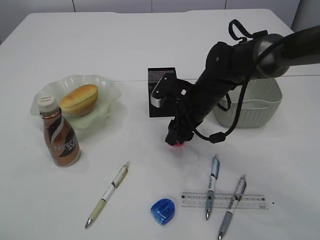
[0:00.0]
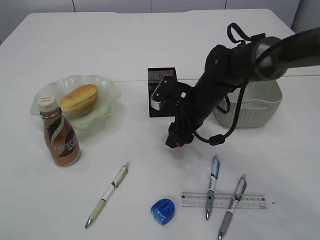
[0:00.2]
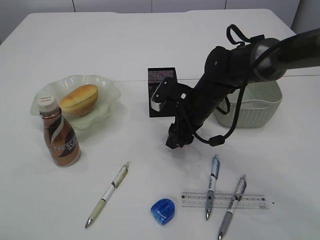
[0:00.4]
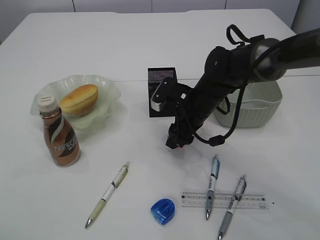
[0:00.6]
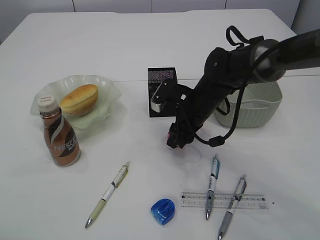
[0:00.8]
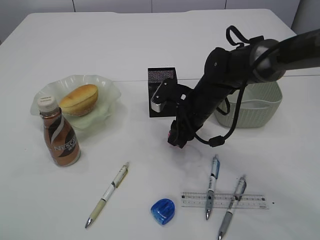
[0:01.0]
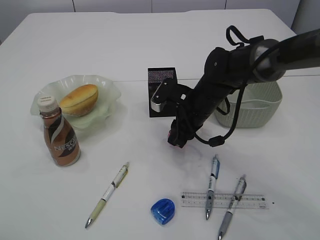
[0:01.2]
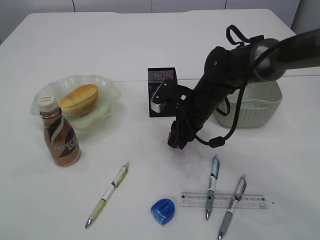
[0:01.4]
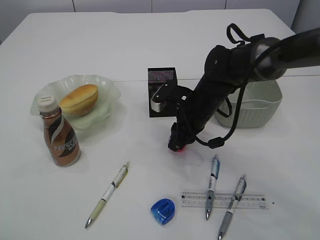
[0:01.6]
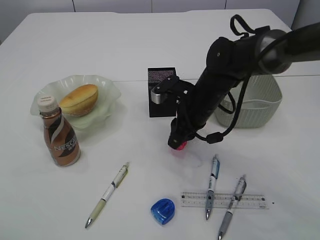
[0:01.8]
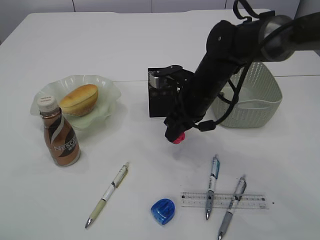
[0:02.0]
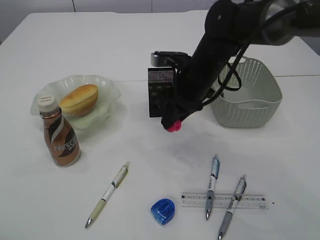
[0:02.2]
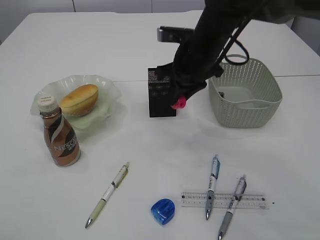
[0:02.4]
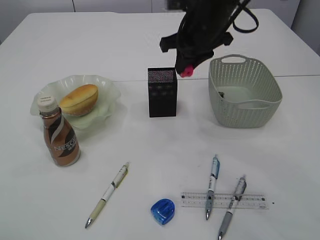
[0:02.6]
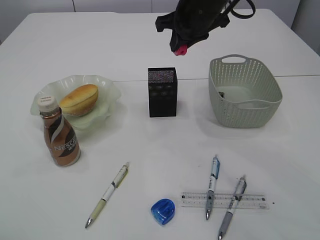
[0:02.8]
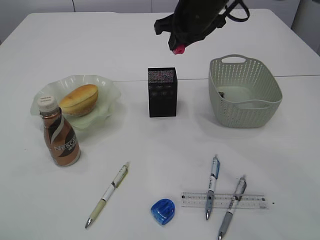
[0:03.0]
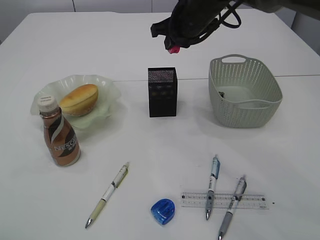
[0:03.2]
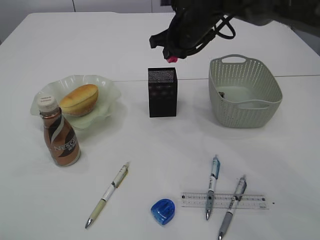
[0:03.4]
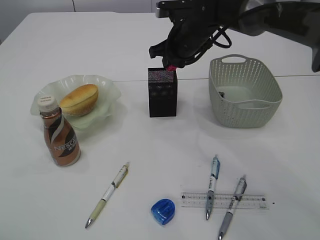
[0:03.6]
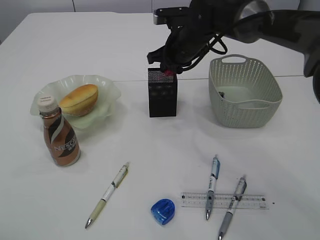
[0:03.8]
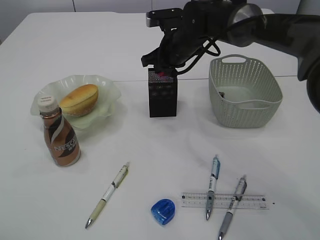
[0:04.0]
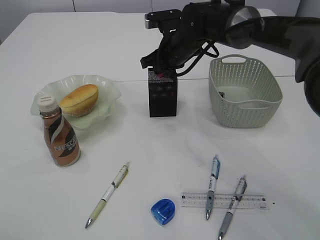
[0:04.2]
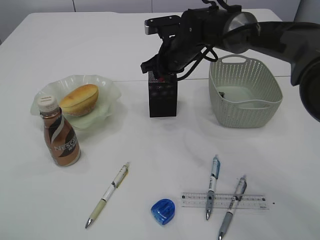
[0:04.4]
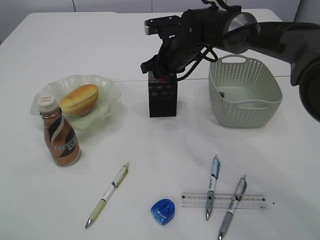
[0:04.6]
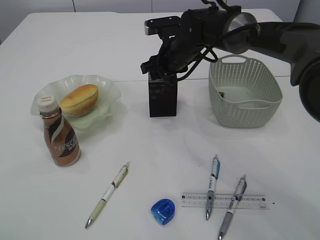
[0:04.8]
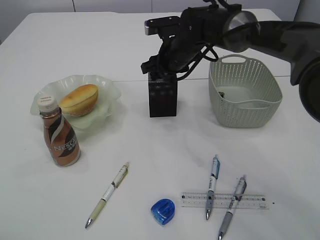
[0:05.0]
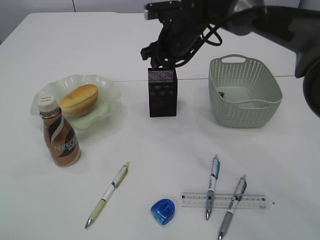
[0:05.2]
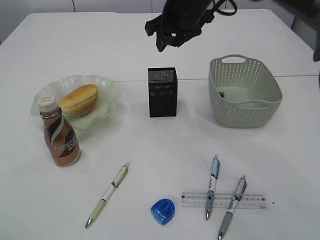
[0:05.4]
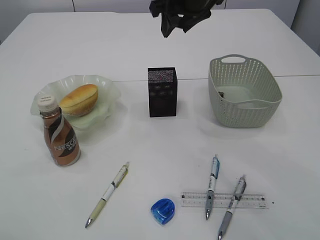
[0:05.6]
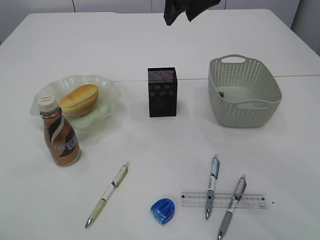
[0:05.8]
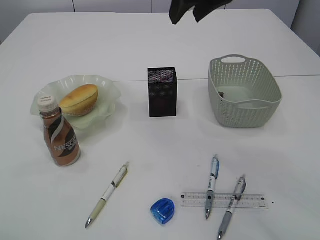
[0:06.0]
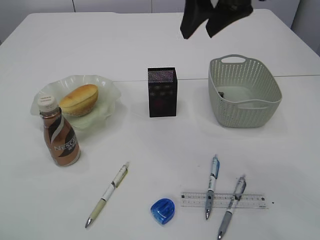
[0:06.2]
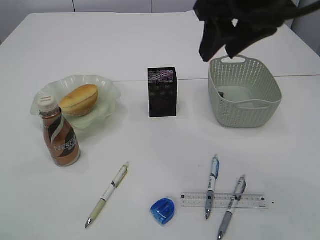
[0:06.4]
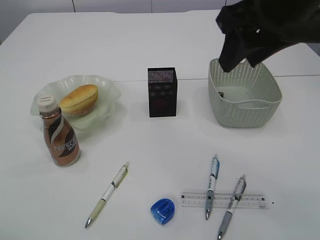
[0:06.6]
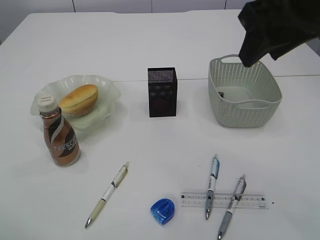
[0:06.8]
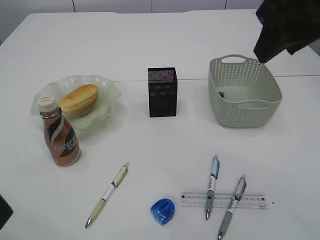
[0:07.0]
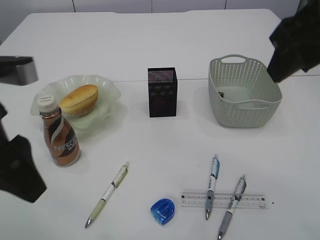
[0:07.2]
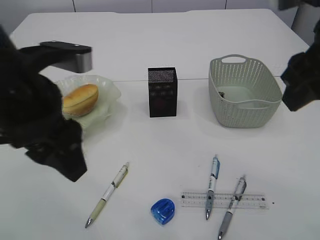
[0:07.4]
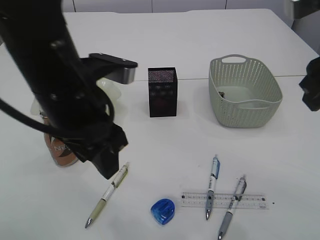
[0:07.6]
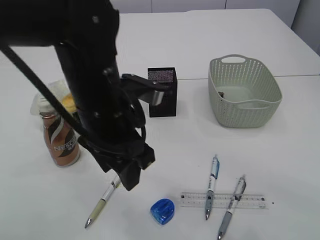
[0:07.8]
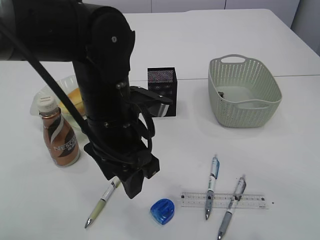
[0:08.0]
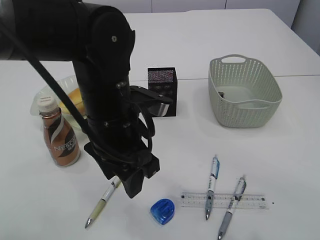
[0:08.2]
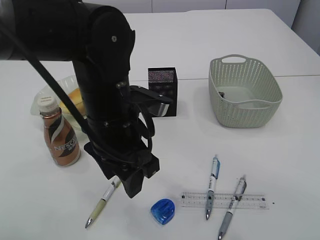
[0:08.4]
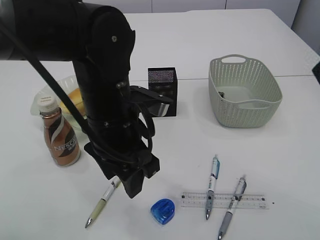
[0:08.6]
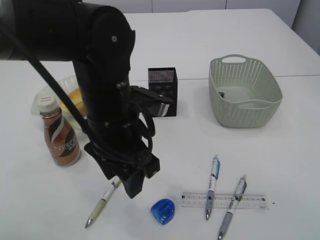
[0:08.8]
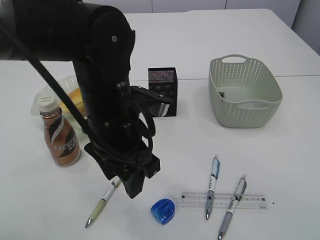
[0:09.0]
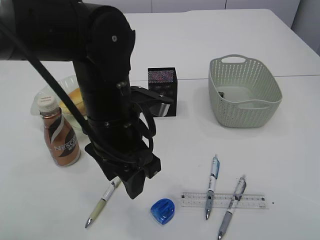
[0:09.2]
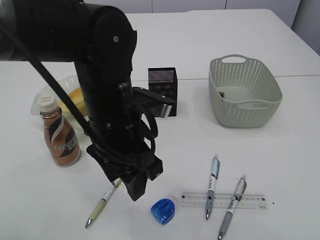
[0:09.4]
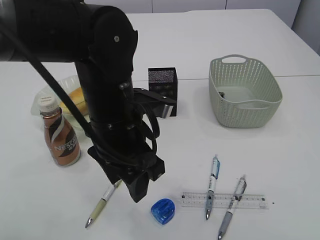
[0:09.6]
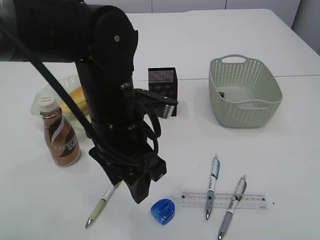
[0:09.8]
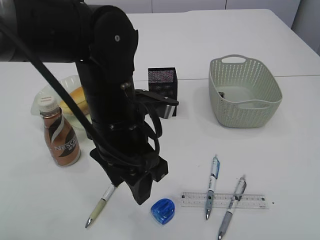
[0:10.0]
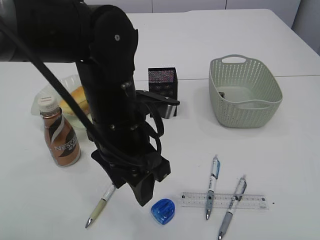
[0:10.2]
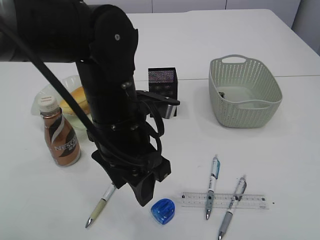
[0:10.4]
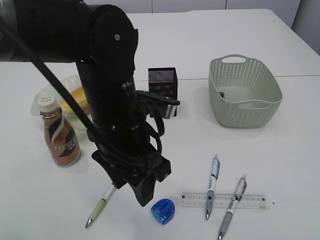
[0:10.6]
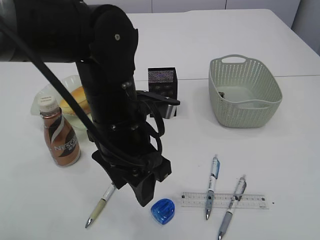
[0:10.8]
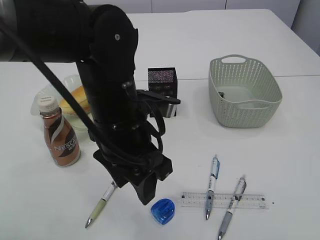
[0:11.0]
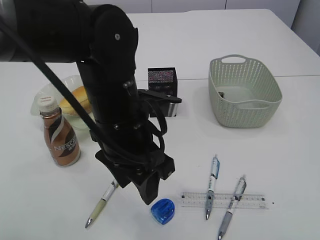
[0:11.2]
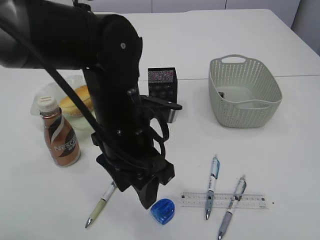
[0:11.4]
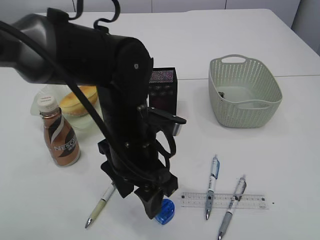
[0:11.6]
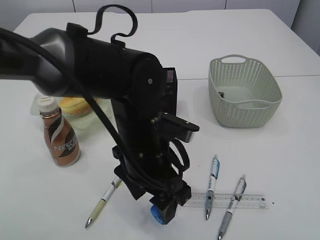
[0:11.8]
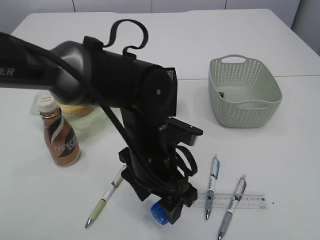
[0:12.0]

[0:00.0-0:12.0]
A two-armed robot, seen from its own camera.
Step, 0:00.0 to 0:02.2: Pick up the red pencil sharpener.
Step, 0:02.4 to 0:05.2: Place the red pencil sharpener into the pen holder.
0:00.0 to 0:01.6: The right gripper closes up.
0:01.6 to 0:03.0: The right gripper shifts about 15 cm upward.
0:03.0 to 0:04.4: The right gripper is displaced downward by roughly 10 cm.
0:04.4 to 0:06.0: The right gripper is displaced upward and backward by roughly 25 cm, and opens its fingers.
0:06.0 to 0:07.6: The left gripper moves to the right and forward, roughly 20 cm; the right gripper is displaced backward and to the right by about 20 cm.
0:07.6 to 0:09.0: The right gripper moves backward, upward and to the right, approximately 10 cm. Meanwhile the left gripper goes about 5 cm downward.
0:09.0 to 0:10.4: The right gripper heads downward and backward, covering roughly 15 cm.
0:10.4 to 0:12.0: The left gripper travels downward by some 5 cm.

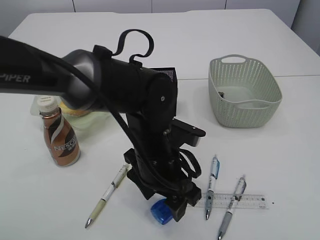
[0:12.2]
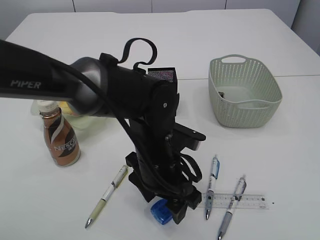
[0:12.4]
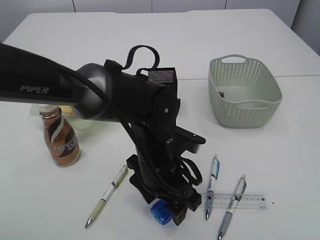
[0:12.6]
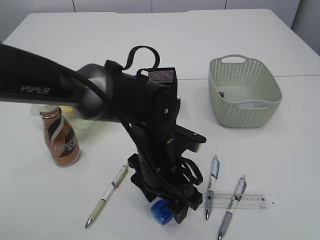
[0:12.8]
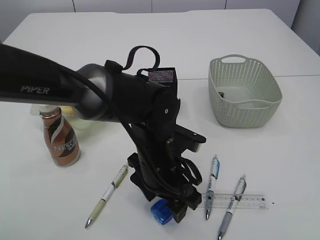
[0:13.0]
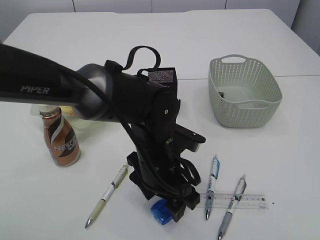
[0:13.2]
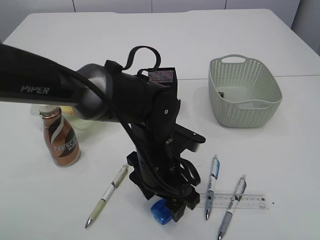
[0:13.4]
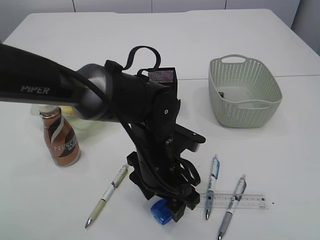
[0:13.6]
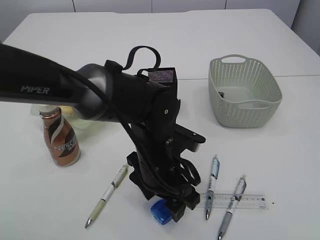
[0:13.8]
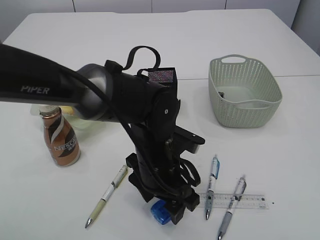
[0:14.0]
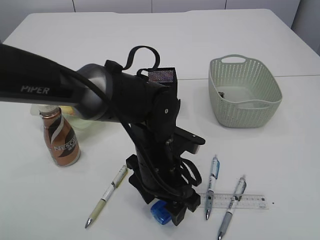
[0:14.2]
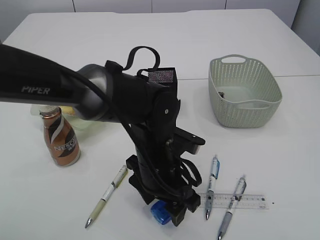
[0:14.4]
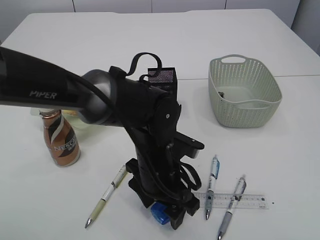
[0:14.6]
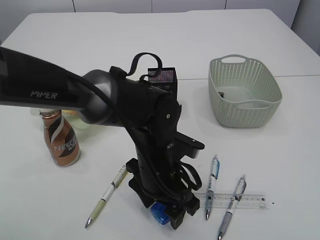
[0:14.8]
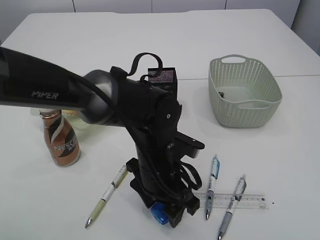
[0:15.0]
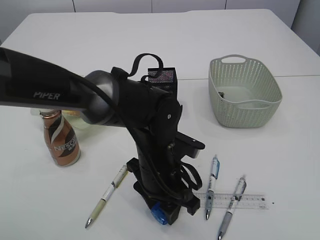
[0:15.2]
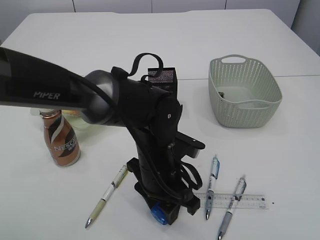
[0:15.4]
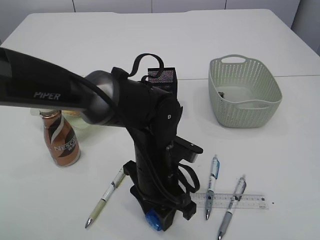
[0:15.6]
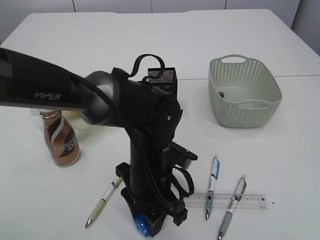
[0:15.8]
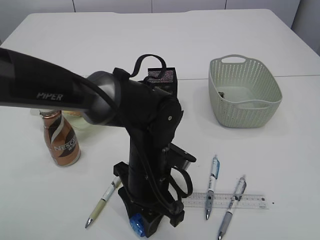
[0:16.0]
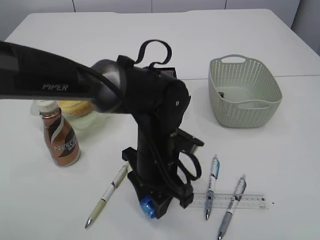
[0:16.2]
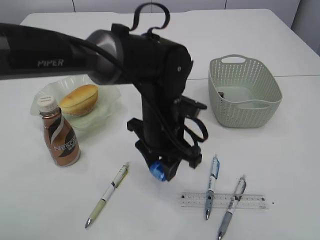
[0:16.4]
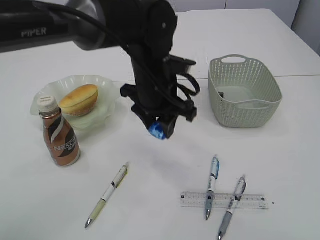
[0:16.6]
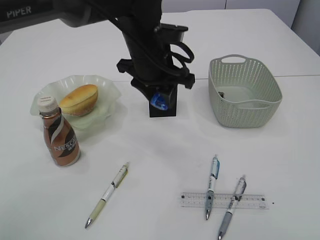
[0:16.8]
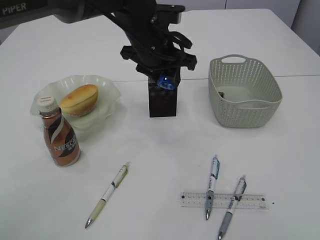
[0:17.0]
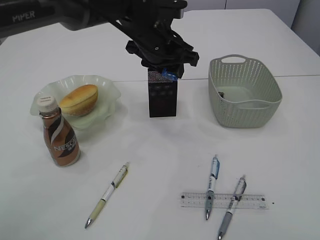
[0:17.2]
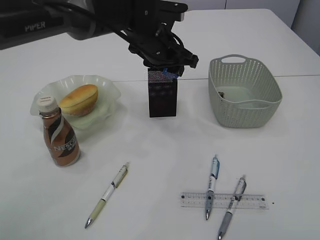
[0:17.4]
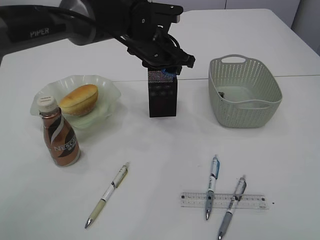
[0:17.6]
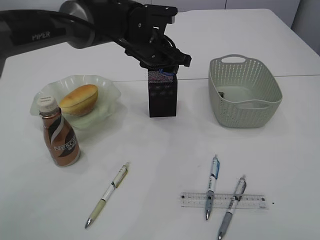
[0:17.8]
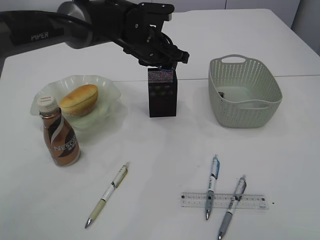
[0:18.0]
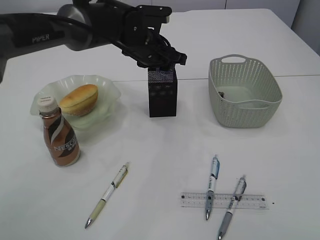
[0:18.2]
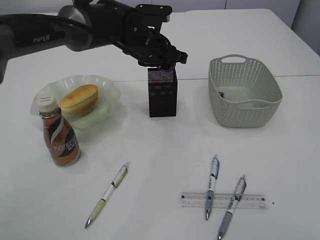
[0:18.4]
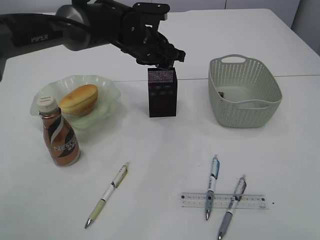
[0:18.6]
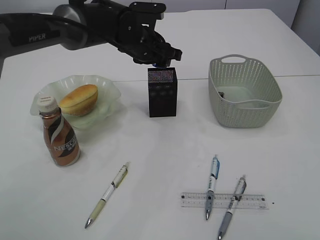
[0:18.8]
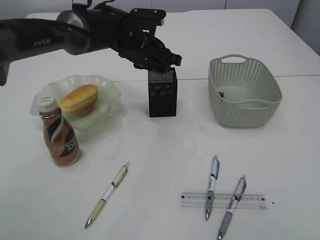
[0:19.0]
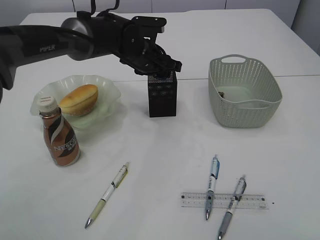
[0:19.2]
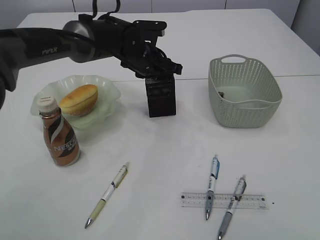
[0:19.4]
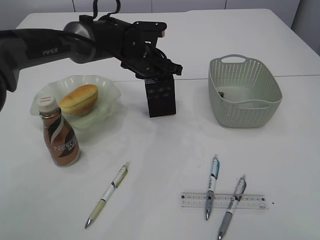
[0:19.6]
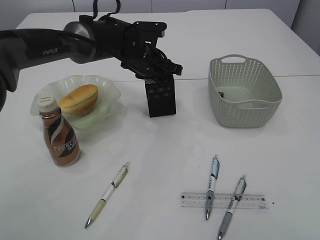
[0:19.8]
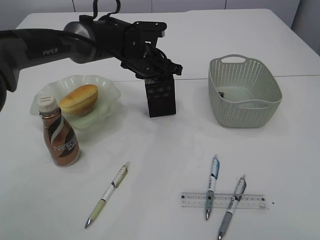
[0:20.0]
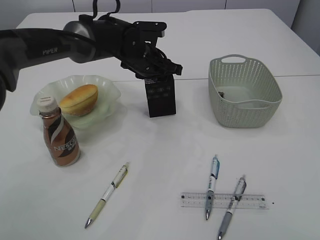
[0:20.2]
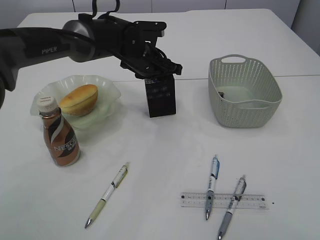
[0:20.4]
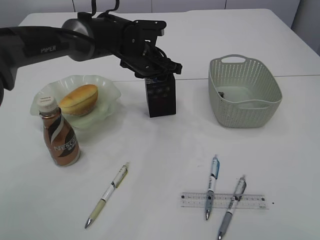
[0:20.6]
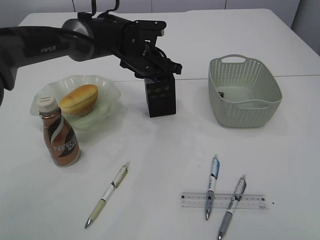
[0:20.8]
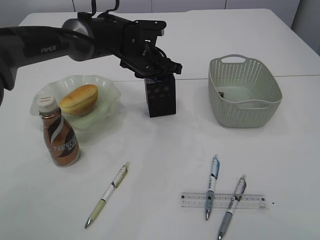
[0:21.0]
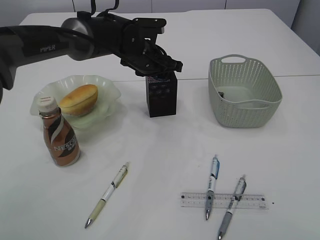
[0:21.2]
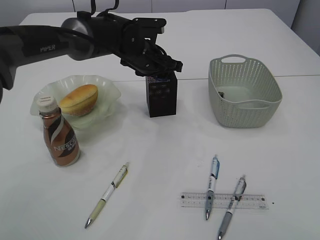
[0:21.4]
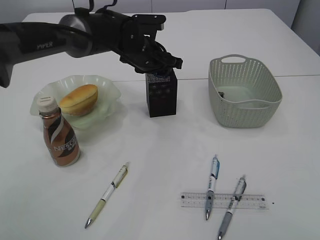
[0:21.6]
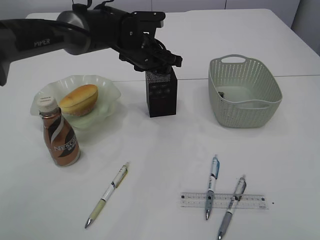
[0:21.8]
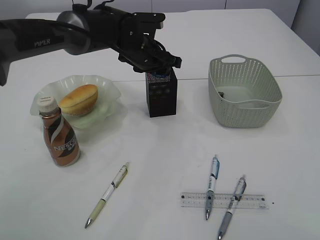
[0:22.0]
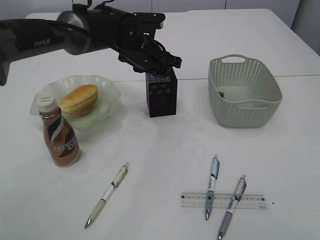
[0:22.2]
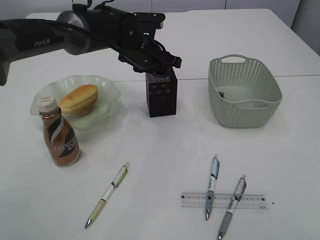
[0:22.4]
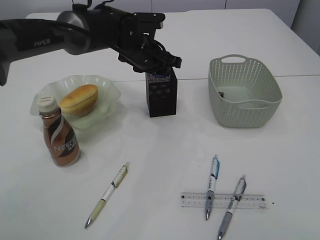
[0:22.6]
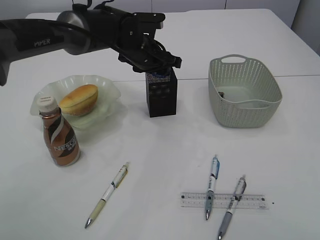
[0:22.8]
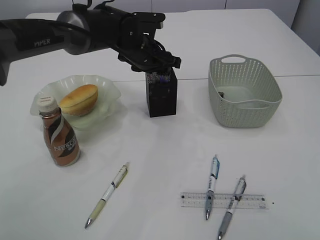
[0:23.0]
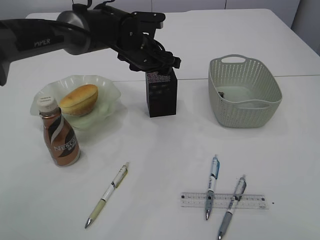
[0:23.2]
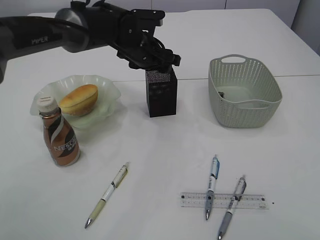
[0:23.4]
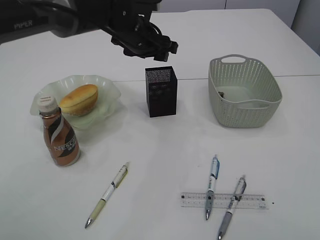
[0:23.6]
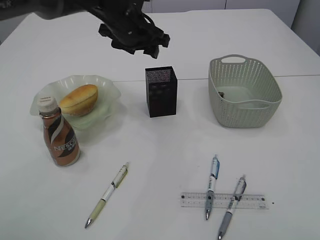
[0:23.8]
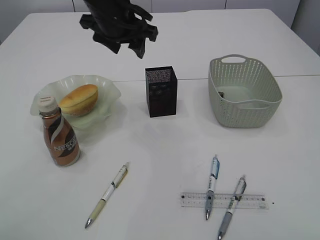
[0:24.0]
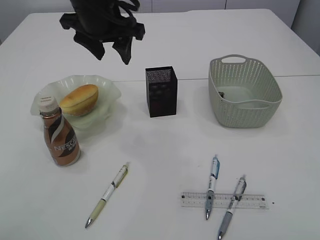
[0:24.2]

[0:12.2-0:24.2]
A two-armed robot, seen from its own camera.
Step, 0:12.2 to 0:16.2: Pick up the blue pencil sharpener.
Step, 0:16.4 to 0:23.8: Place the blue pencil sharpener into the pen holder.
0:12.2 to 0:13.8: There are only small adjustments of the grippers.
0:13.8 to 0:15.2: Both grippers stay about where they are.
0:15.2 to 0:16.6: The left gripper is displaced upward and forward by approximately 10 cm.
0:16.6 to 0:18.2: The left gripper moves forward, about 10 cm.
0:18.2 to 0:19.8: The grippers make only small movements.
0:19.8 to 0:21.2: Both grippers stay put.
0:21.2 to 0:22.6: Both grippers stay put.
0:22.6 to 0:24.2: The left gripper heads upward, backward and to the left, covering approximately 15 cm.
